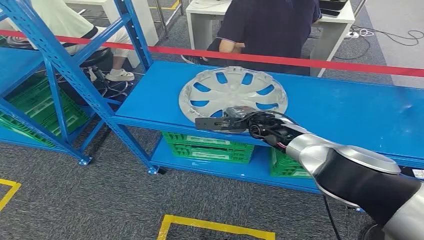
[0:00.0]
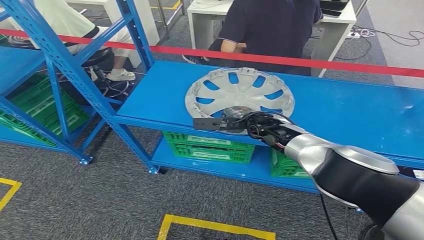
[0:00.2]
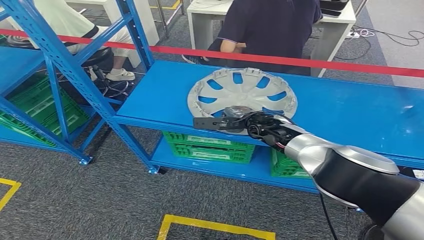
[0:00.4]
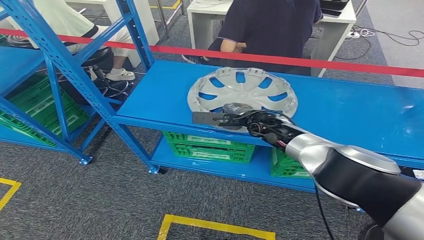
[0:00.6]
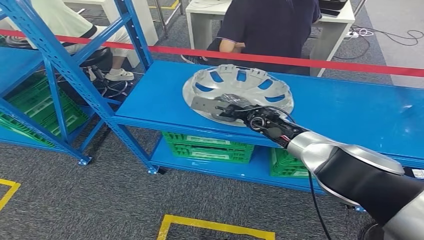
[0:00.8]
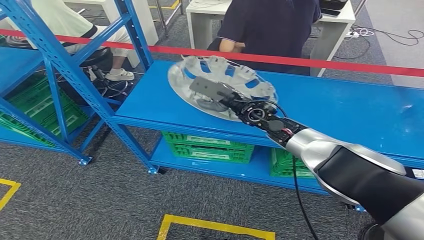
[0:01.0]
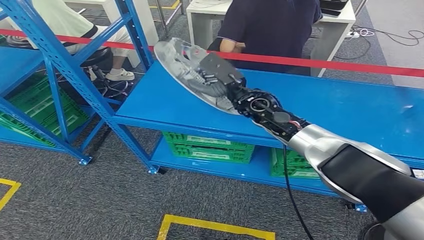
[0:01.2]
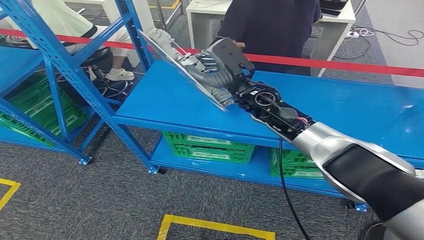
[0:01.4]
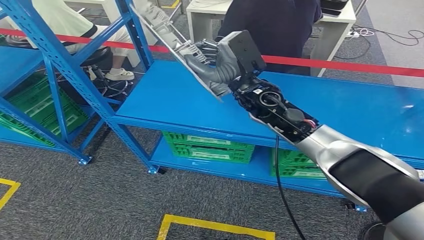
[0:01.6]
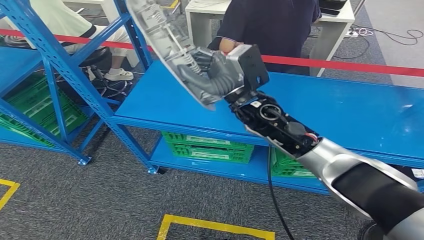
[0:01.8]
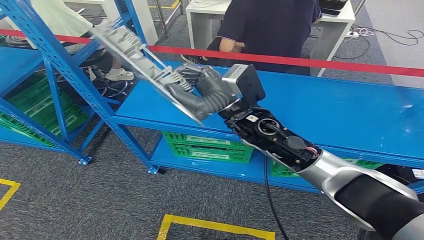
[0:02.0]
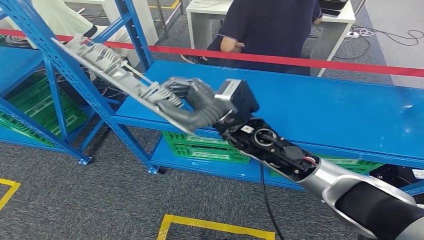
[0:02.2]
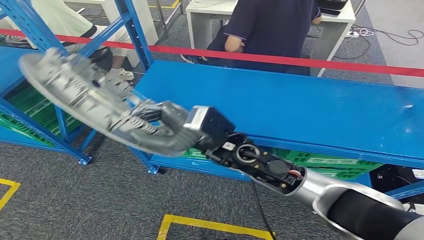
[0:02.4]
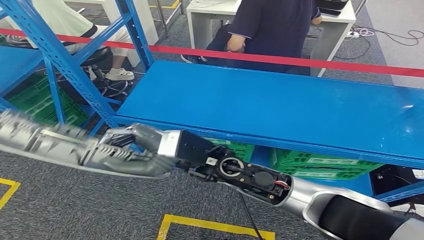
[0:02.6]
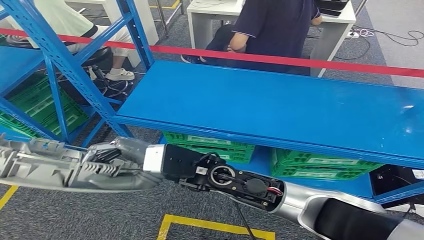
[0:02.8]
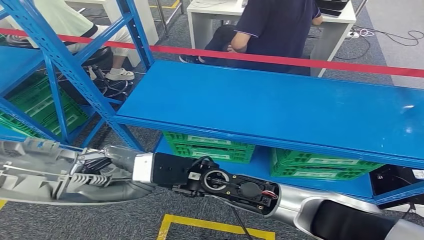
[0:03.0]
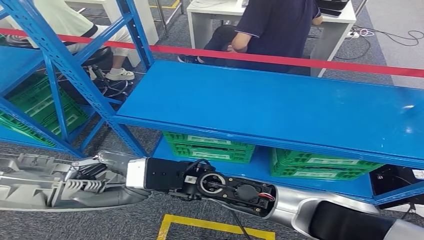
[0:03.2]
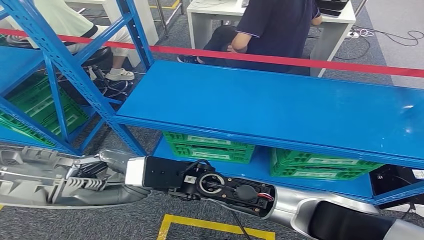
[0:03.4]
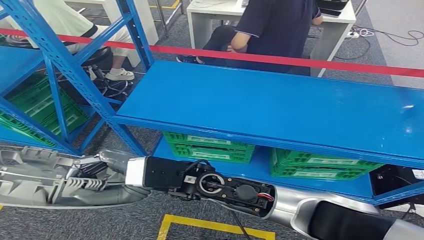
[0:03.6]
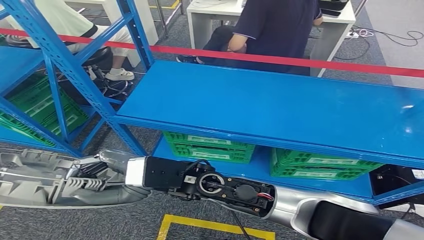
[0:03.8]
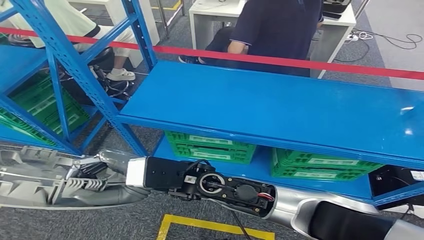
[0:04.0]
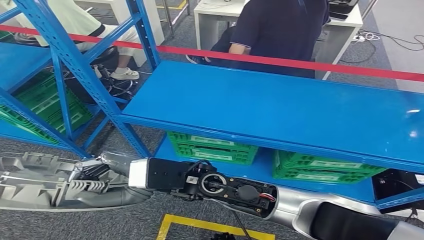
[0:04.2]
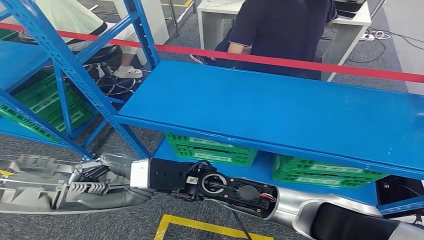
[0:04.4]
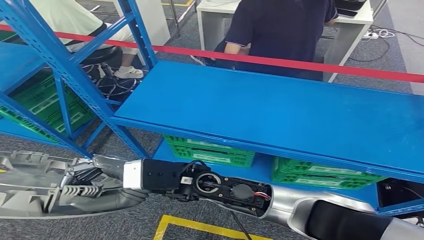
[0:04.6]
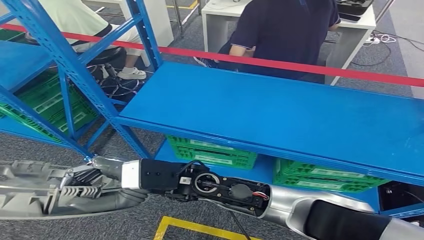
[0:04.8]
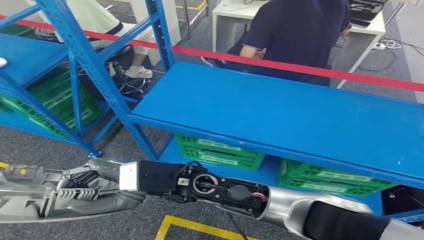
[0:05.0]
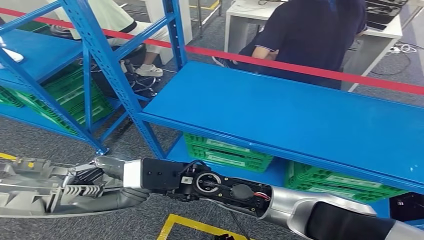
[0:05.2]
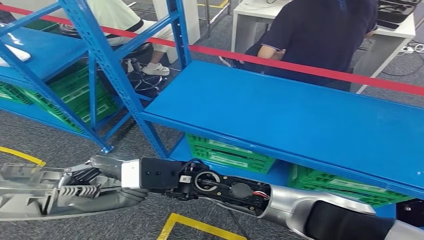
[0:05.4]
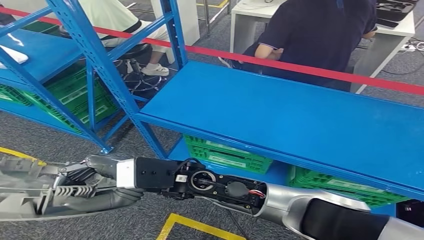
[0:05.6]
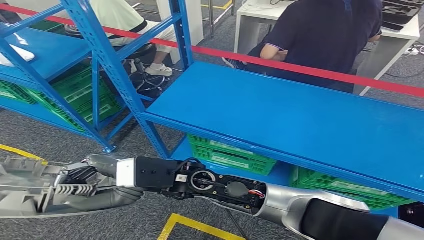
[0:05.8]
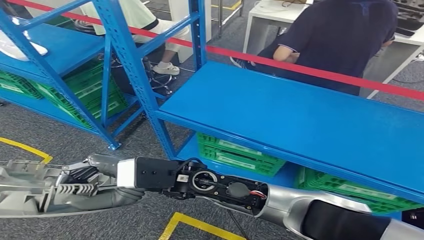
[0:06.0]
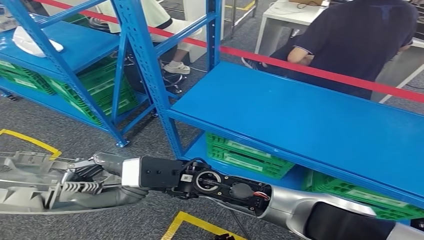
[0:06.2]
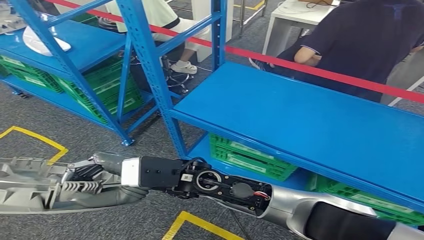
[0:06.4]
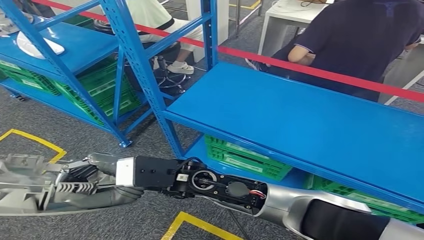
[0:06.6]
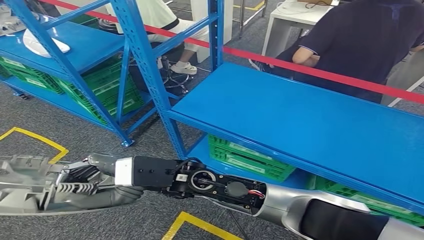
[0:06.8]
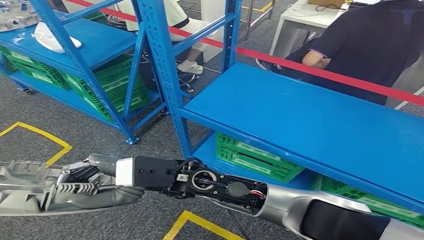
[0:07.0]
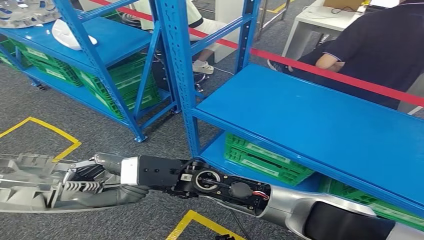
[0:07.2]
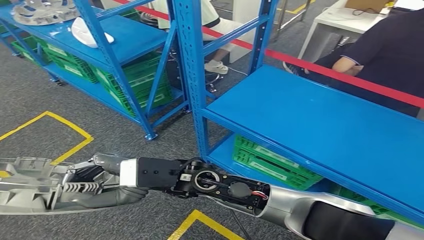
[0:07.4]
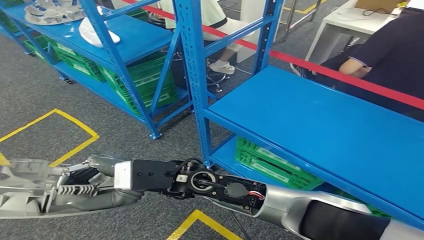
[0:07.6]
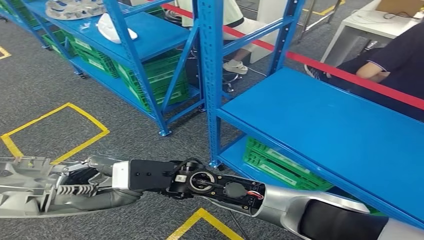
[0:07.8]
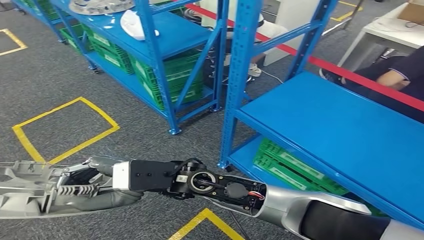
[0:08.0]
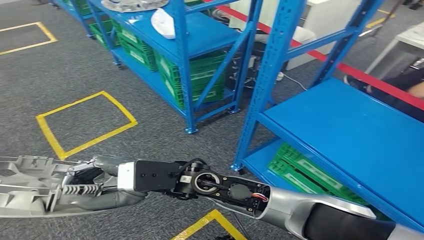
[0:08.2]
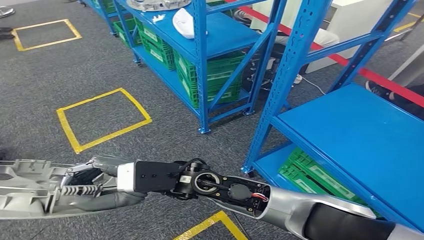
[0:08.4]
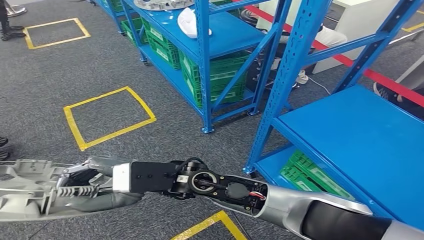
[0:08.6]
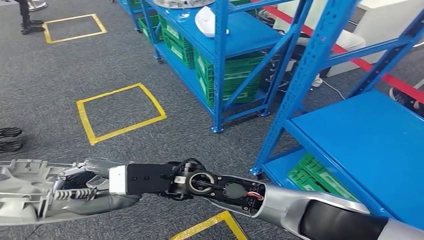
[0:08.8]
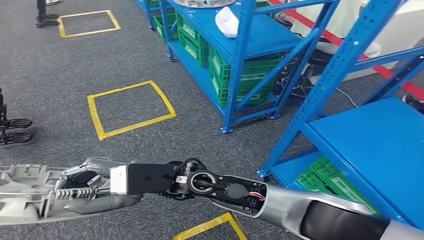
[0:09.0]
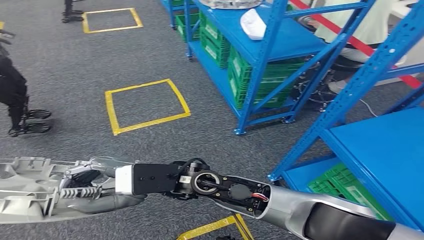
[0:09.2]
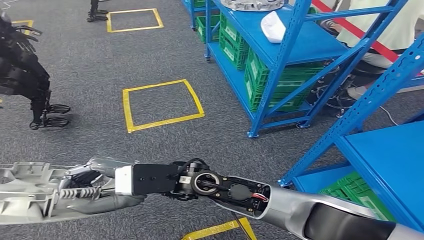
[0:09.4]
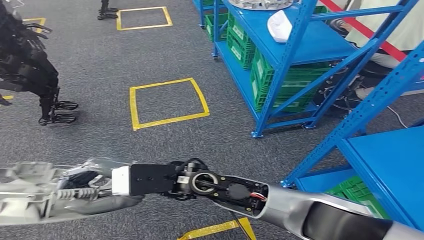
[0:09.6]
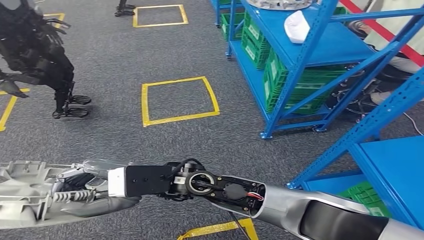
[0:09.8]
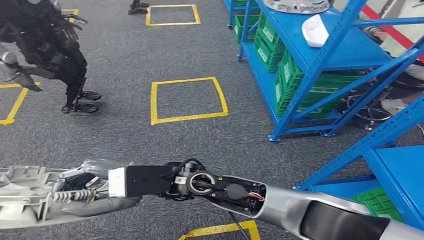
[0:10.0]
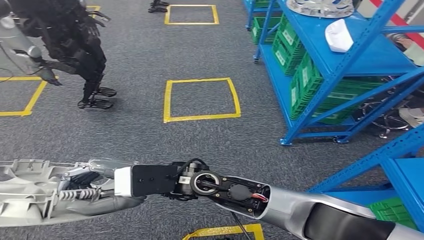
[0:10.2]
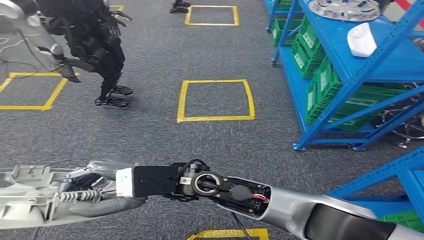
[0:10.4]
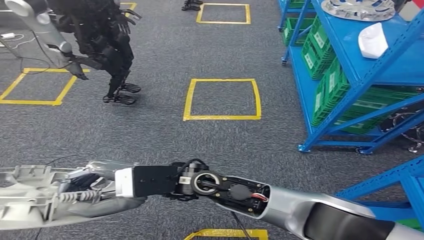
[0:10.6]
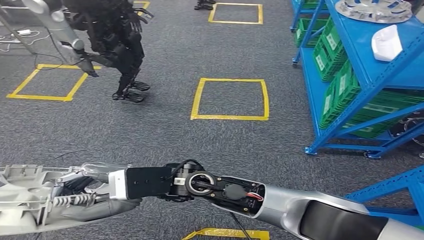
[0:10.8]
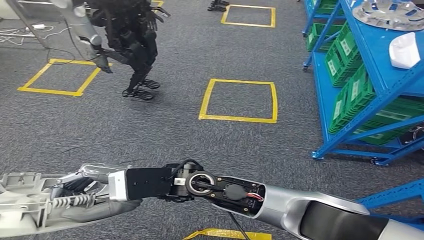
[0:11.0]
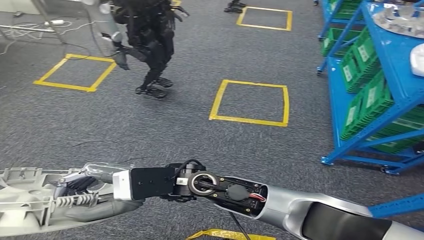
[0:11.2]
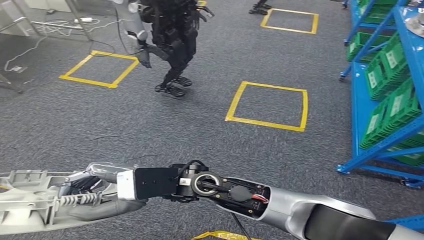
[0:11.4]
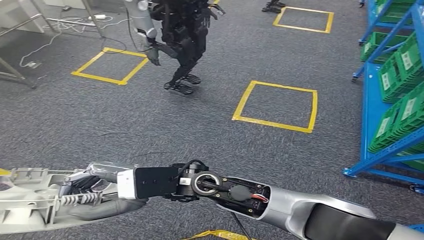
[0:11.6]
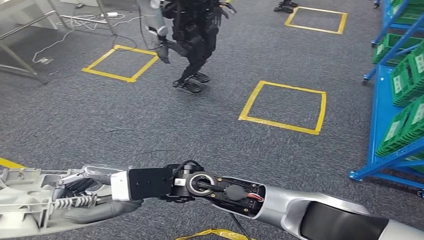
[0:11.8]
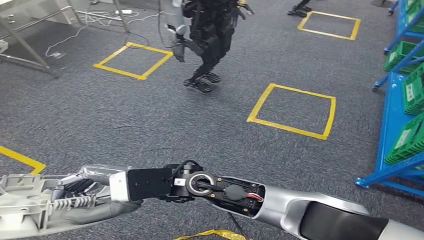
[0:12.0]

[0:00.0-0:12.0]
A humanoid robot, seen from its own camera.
Step, 0:00.0 to 0:02.4: Pick up the small parts from the shelf.

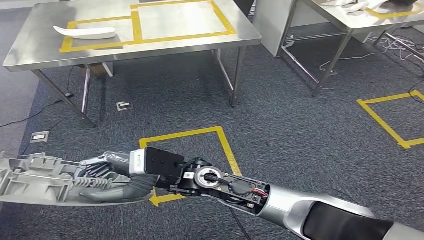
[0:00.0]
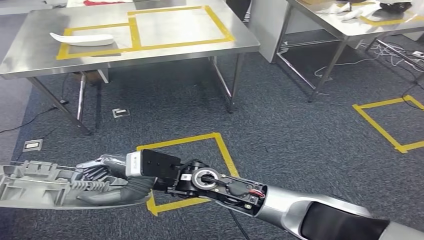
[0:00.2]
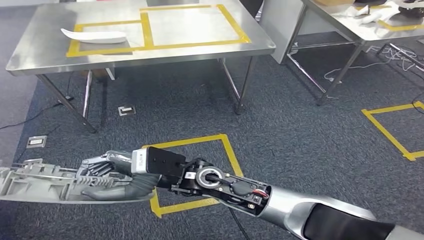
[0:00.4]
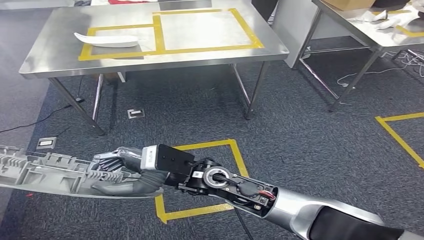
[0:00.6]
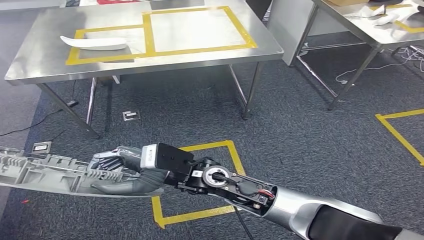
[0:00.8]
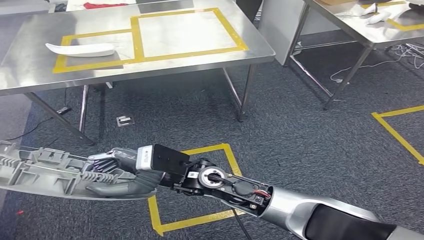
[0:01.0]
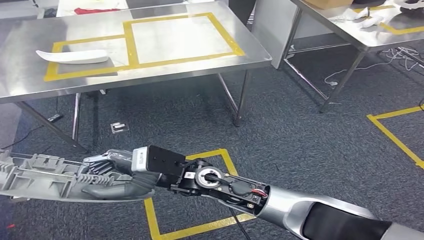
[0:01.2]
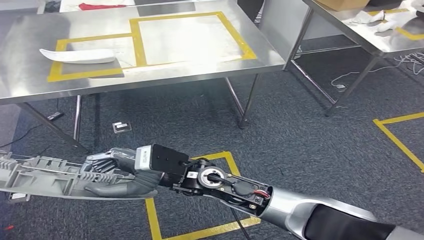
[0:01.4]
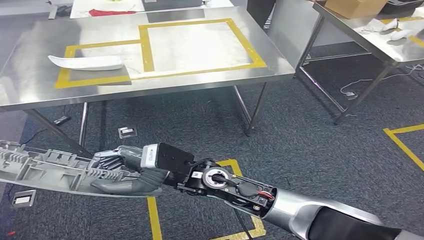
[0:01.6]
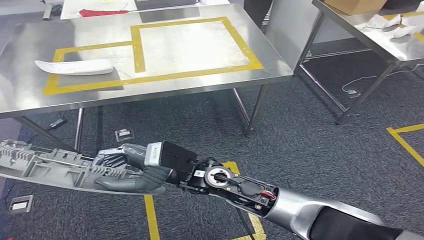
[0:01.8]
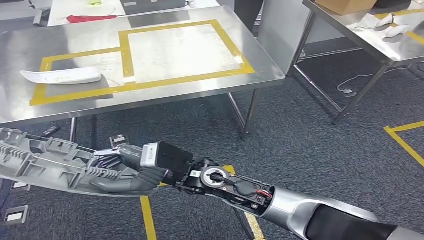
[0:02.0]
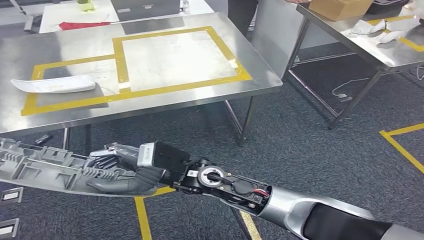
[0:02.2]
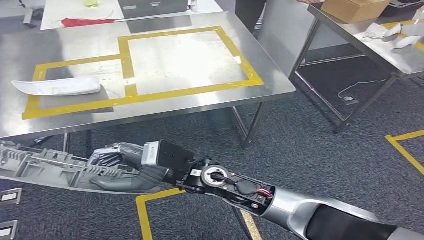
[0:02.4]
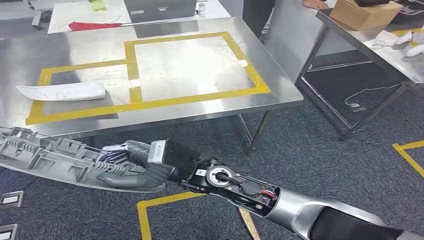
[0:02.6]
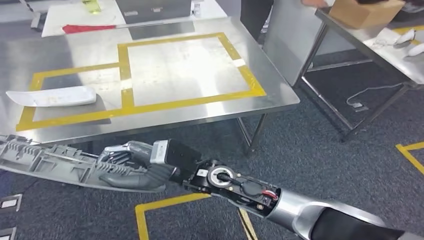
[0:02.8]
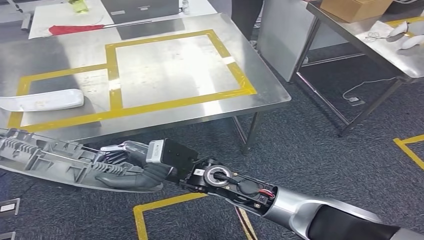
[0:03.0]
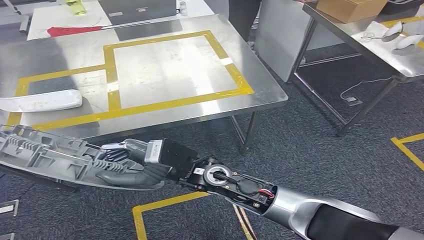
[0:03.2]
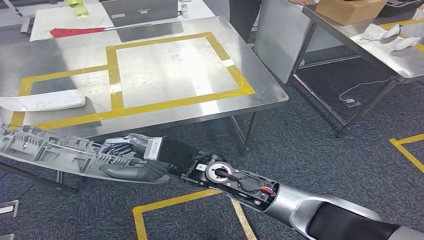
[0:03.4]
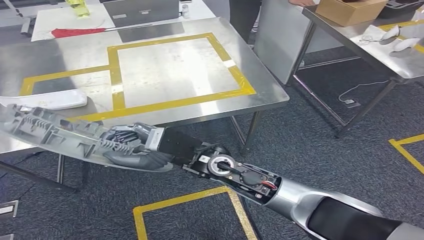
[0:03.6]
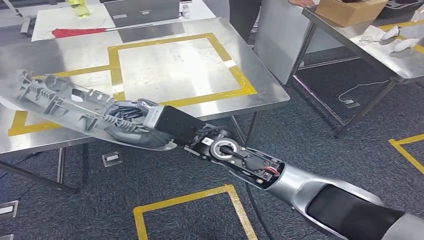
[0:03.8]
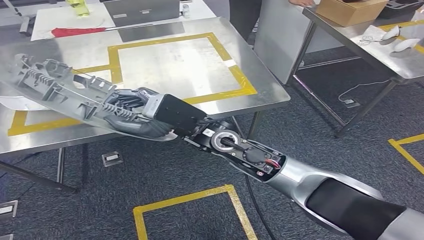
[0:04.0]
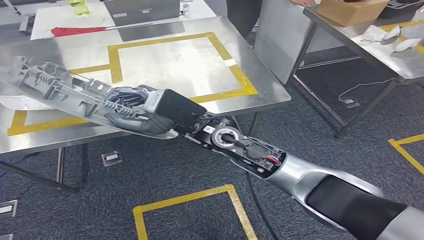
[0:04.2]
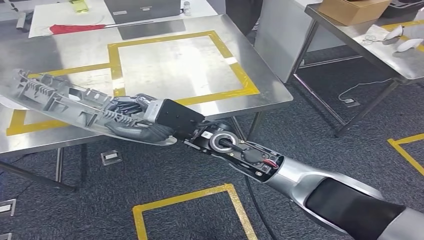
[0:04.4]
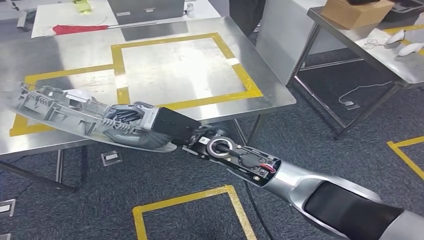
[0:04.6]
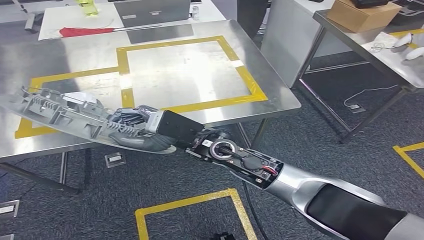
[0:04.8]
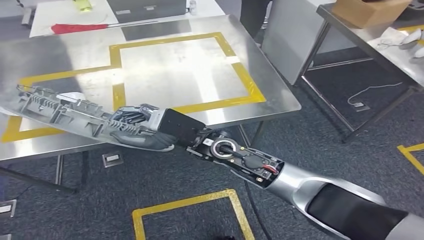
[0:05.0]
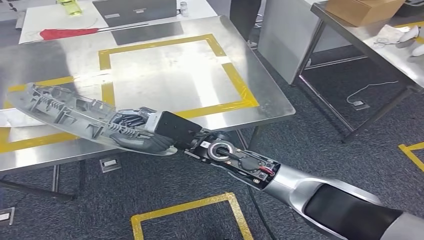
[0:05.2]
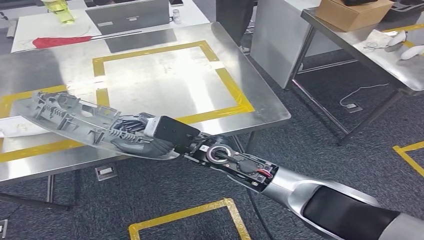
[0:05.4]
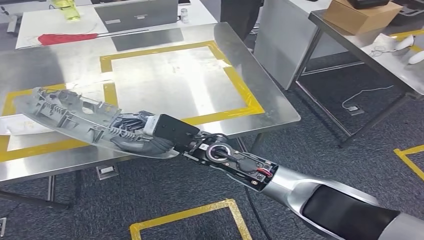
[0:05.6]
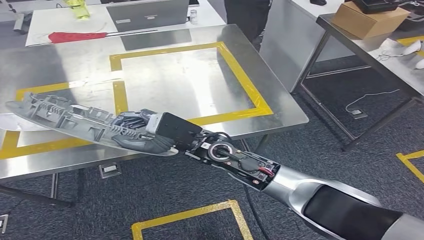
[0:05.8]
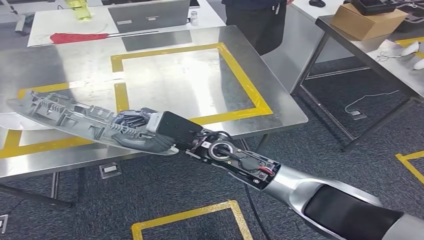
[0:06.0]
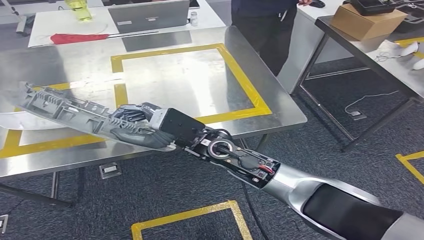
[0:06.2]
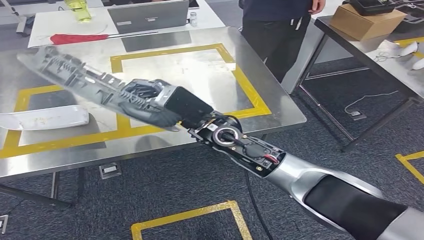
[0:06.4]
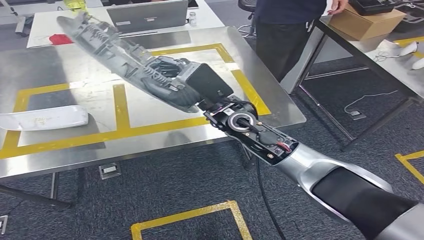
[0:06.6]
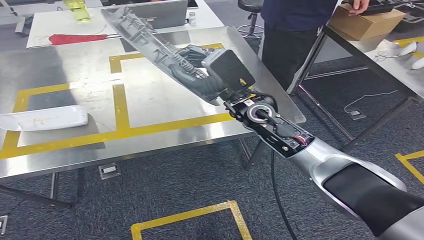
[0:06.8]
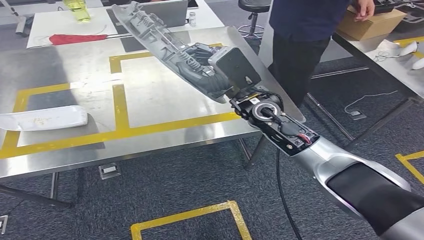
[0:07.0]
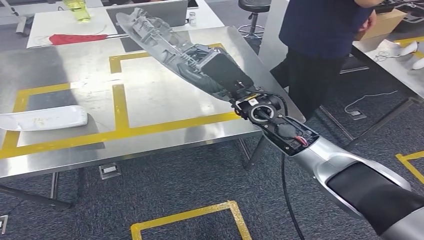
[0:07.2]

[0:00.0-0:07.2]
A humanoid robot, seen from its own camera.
Step, 0:00.0 to 0:04.2: Move the small parts to the workbench.
